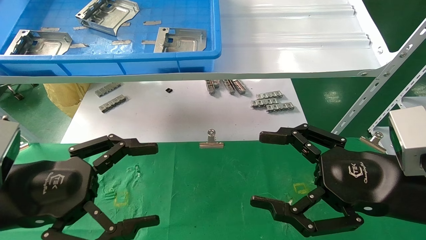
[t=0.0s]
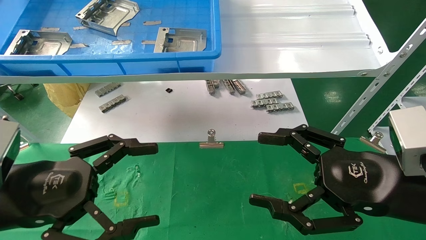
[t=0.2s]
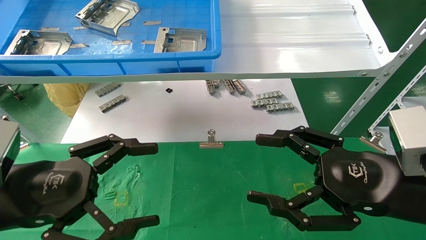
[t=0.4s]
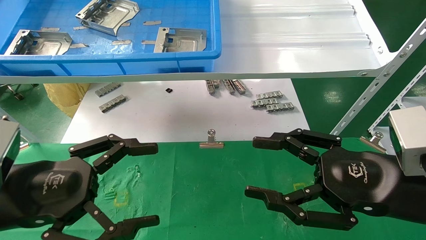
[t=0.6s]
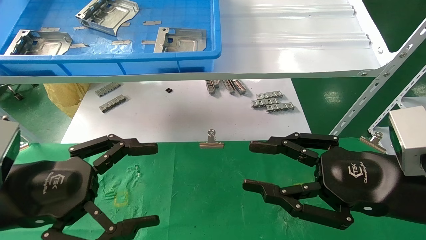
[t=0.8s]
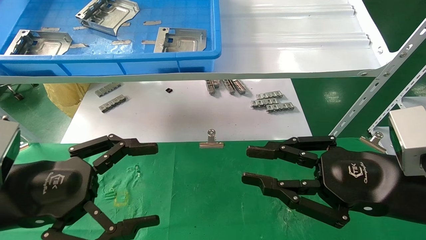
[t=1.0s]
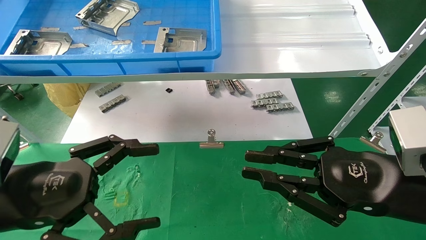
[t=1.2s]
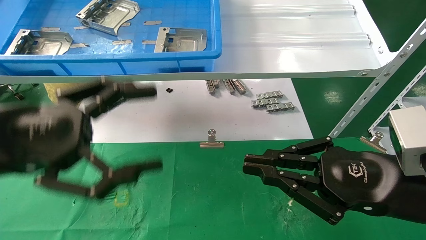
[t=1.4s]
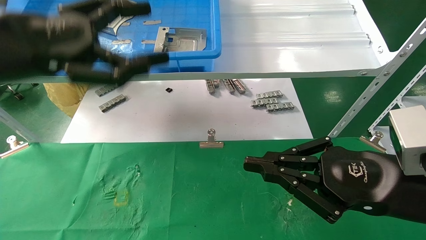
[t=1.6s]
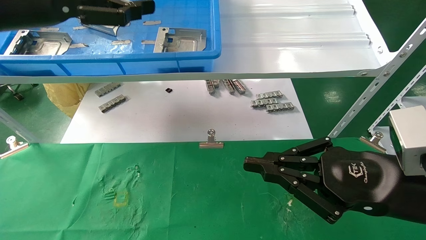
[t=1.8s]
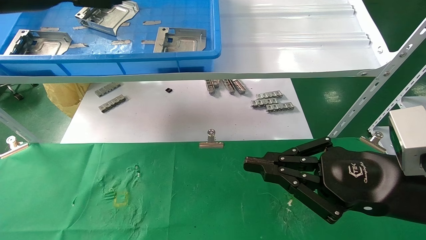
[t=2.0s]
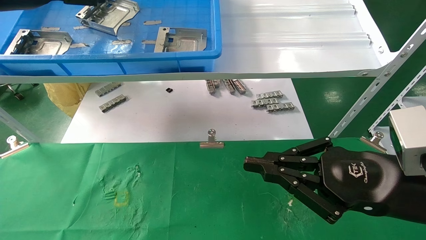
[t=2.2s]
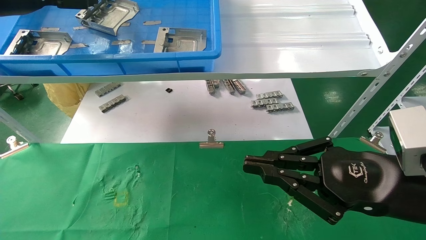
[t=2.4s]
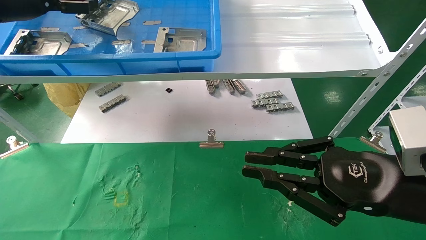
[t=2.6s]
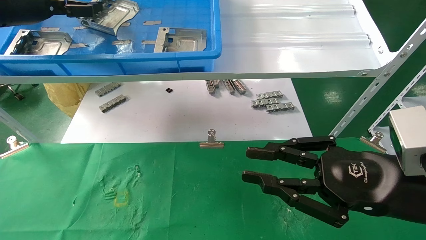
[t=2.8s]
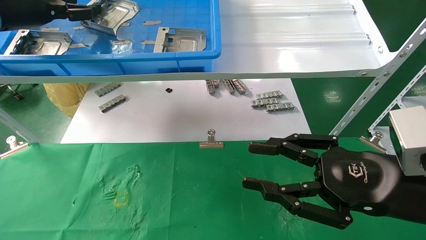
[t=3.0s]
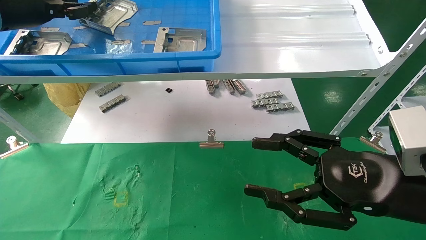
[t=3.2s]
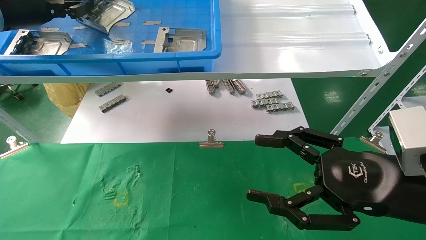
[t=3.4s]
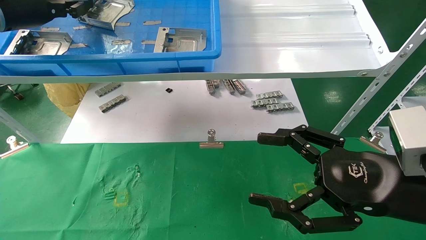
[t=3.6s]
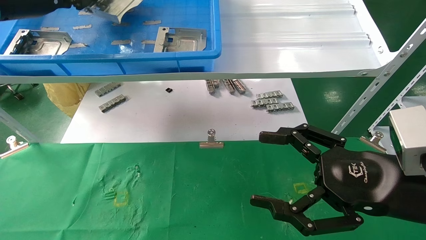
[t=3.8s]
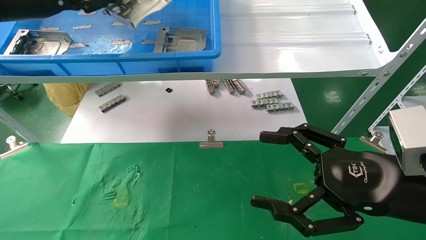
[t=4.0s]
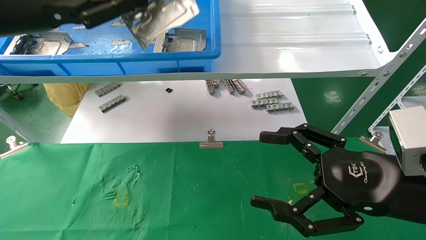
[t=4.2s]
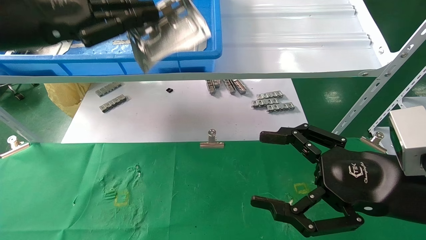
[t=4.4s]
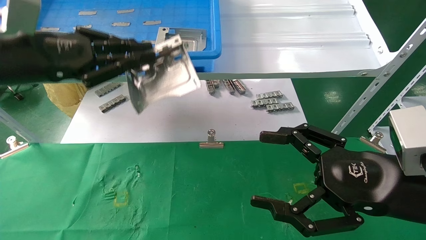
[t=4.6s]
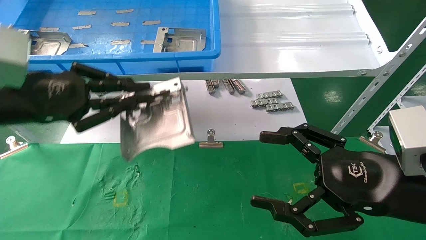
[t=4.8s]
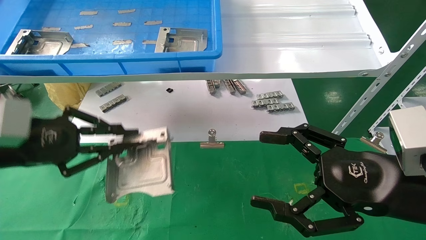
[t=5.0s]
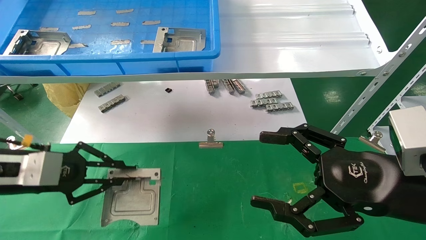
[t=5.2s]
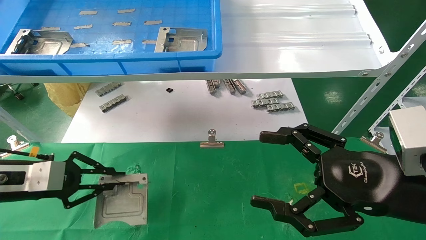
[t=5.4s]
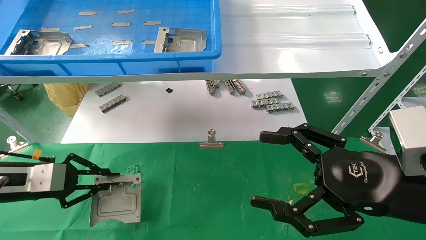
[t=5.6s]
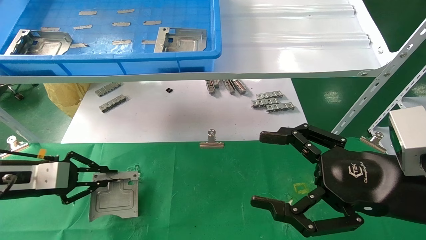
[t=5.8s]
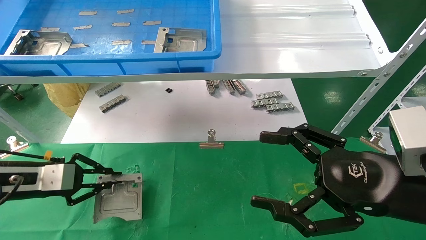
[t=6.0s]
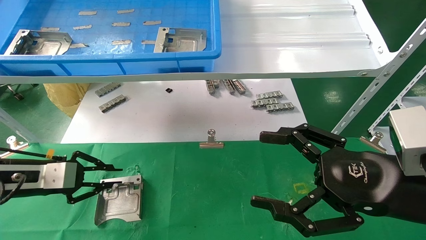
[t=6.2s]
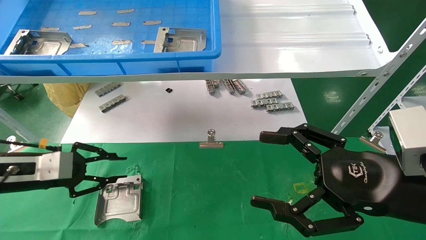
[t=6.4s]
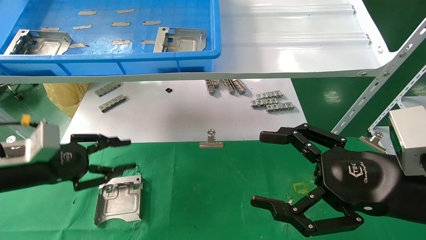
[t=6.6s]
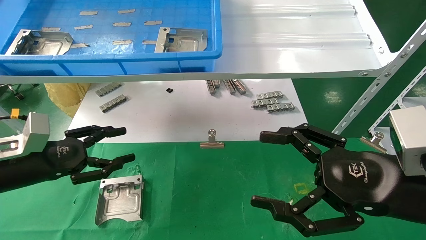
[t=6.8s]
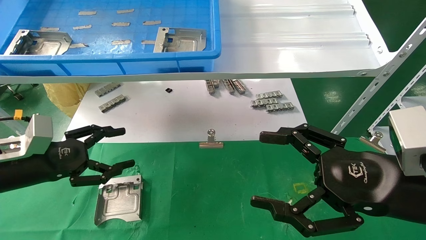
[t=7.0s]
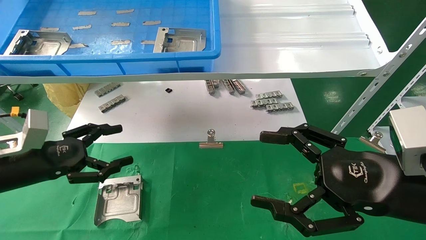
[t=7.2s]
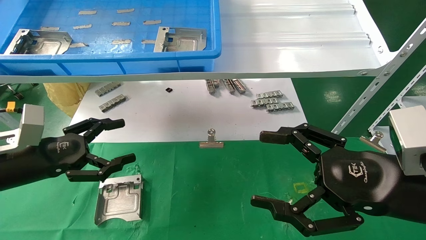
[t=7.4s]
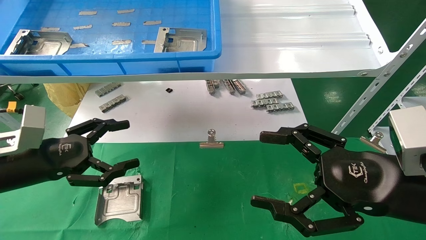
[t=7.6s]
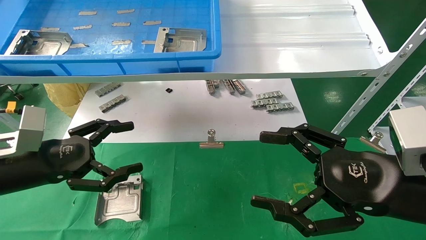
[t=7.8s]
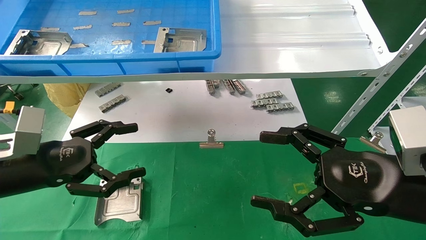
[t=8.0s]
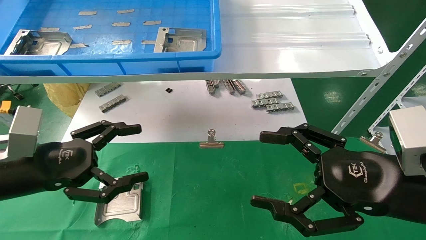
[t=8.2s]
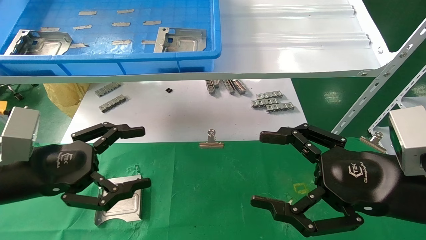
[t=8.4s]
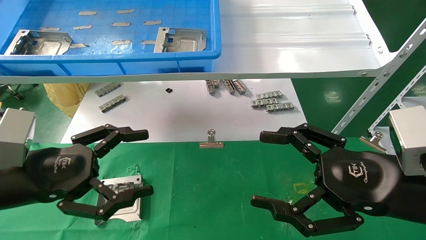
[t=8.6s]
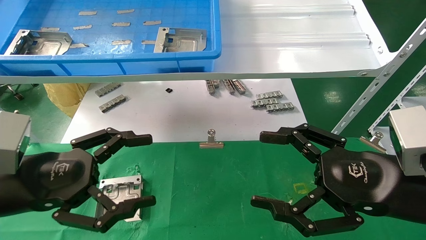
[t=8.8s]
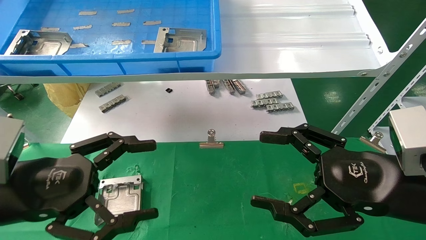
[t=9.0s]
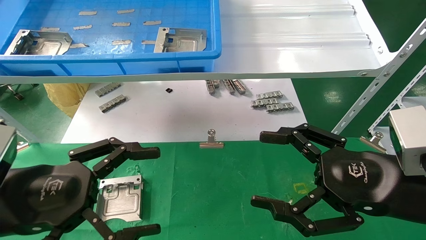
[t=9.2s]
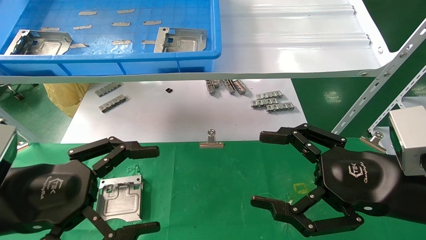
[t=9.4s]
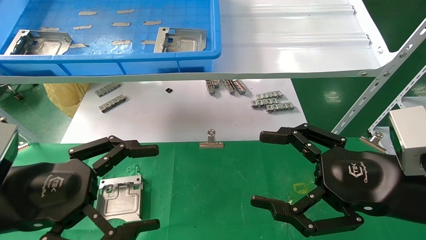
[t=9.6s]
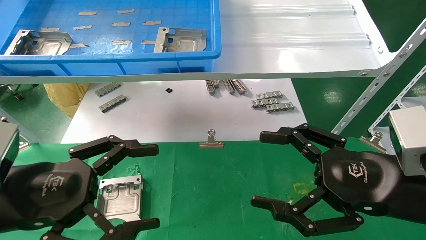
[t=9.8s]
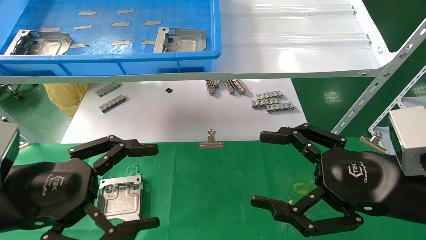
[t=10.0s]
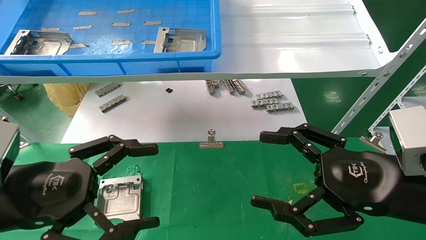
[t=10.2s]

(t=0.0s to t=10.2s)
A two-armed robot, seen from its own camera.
Task of the whole recording: use the mechanical arm to pick up the parts and place them on the table.
Step, t=1.6s - t=3.6s: Pick up the hard drive bracket from the feeding area.
Step, t=3.8s - t=6.2s: Place the hard drive bracket into the box.
t=0.0s - t=1.4s: The right gripper closes its fingers. The left gripper travels upward by approximately 10 cm.
t=1.4s - t=3.0s: The left gripper is displaced forward, upward and to the left by about 25 cm.
t=3.0s - t=4.4s: The left gripper shifts approximately 10 cm backward and to the right, and closes up, while the right gripper opens up.
t=4.4s - t=5.8s: The left gripper is displaced downward by some 25 cm.
t=5.8s - t=7.2s: The left gripper opens its fingers.
t=7.2s - t=8.8s: The left gripper goes some 10 cm backward and to the right.
t=8.8s - t=10.2s: There are only small adjustments of the grippers.

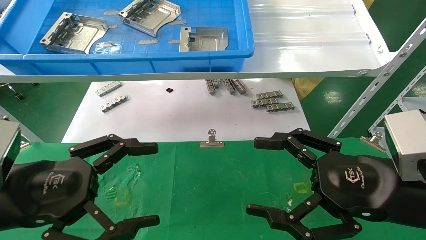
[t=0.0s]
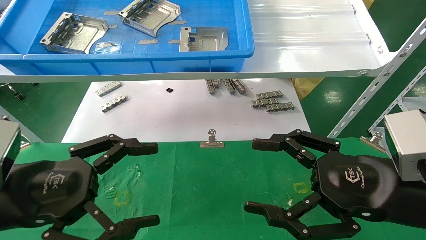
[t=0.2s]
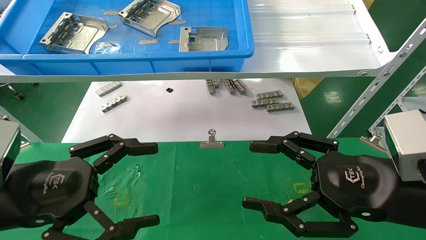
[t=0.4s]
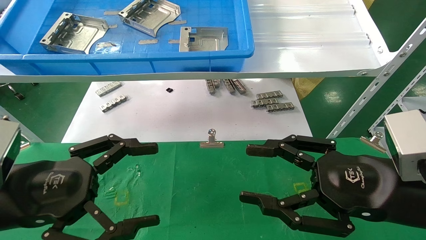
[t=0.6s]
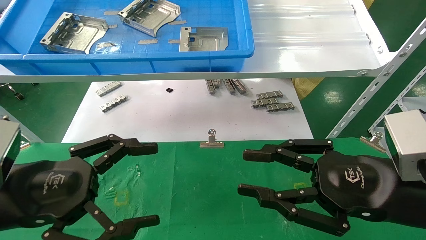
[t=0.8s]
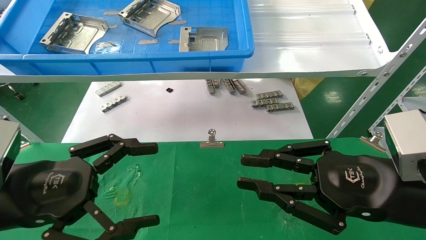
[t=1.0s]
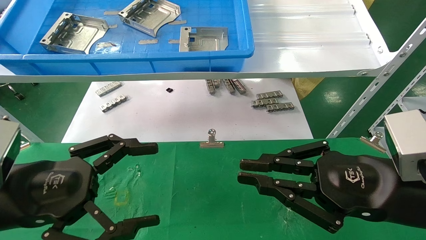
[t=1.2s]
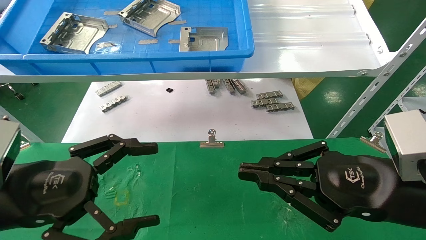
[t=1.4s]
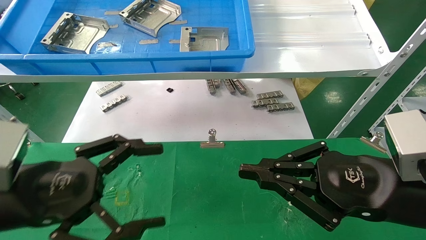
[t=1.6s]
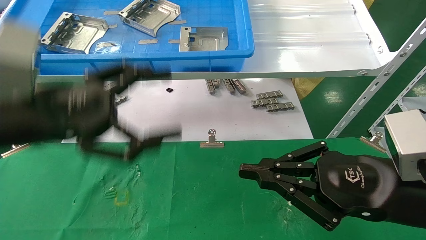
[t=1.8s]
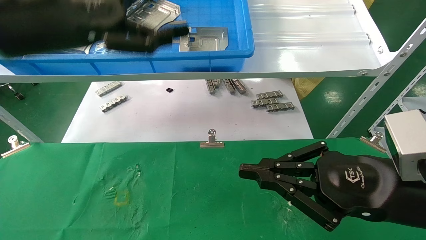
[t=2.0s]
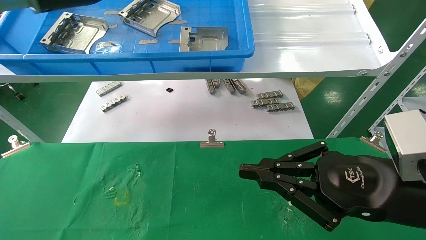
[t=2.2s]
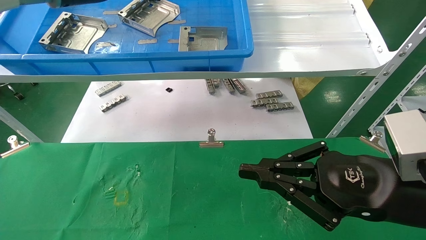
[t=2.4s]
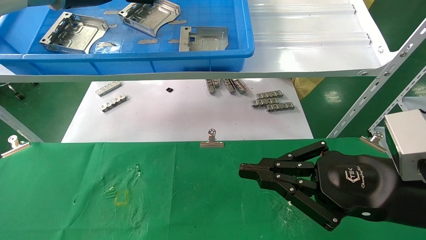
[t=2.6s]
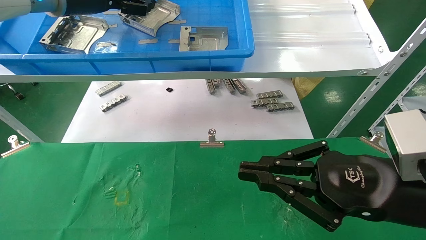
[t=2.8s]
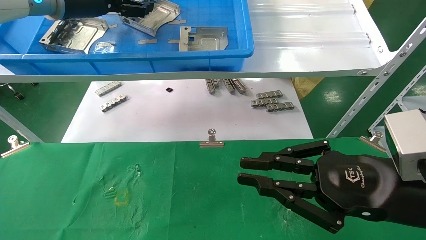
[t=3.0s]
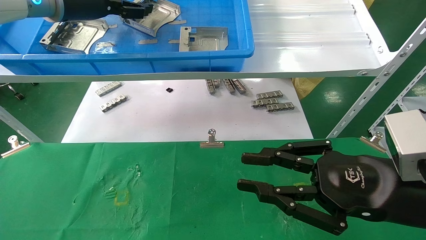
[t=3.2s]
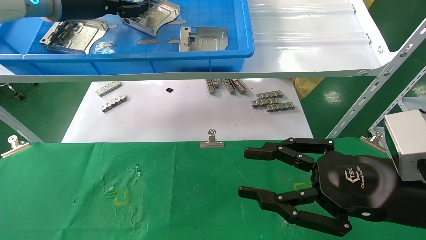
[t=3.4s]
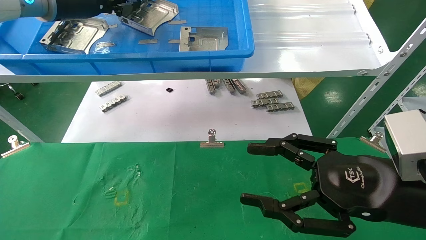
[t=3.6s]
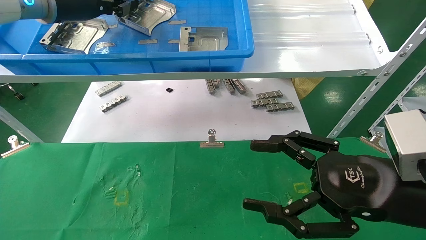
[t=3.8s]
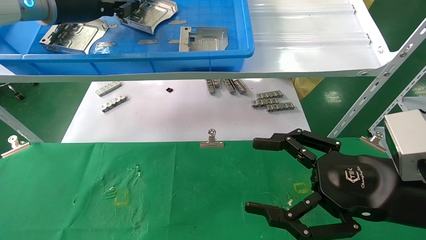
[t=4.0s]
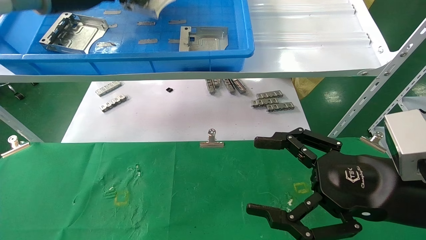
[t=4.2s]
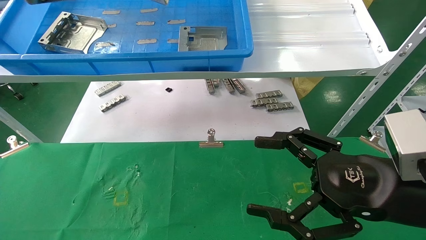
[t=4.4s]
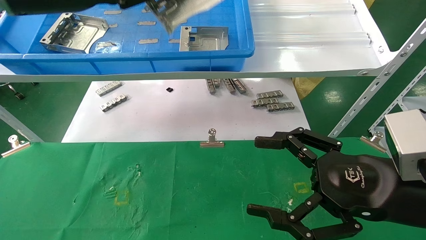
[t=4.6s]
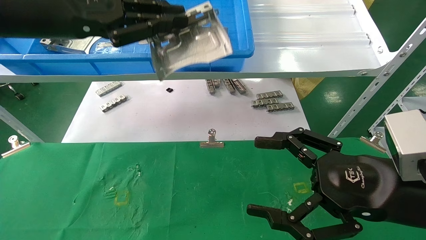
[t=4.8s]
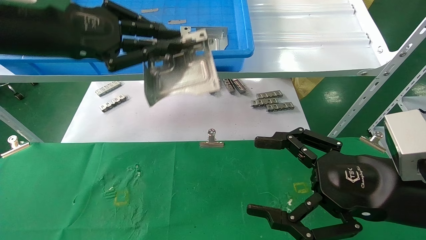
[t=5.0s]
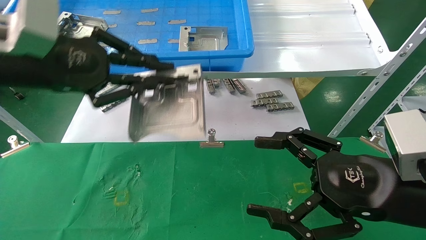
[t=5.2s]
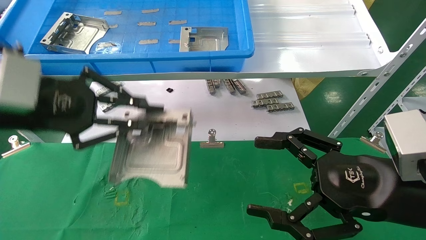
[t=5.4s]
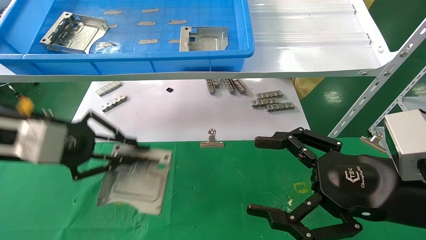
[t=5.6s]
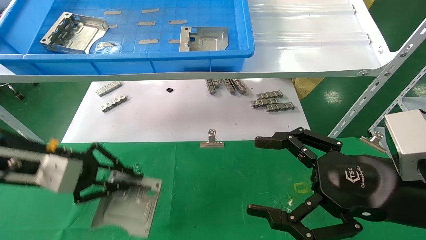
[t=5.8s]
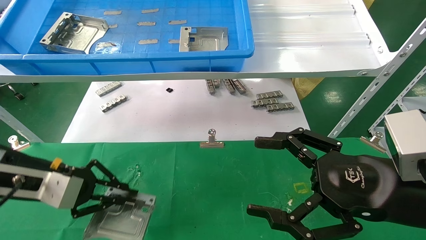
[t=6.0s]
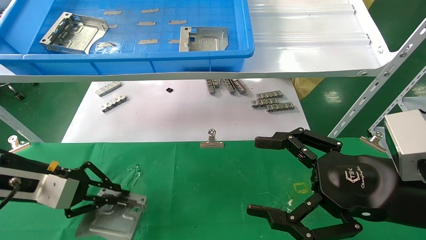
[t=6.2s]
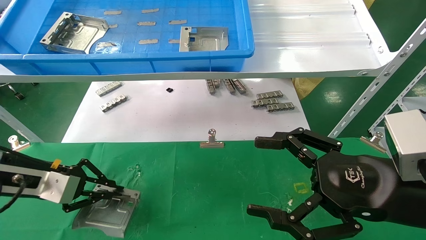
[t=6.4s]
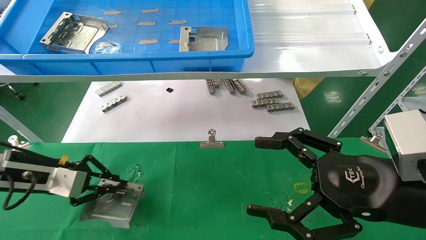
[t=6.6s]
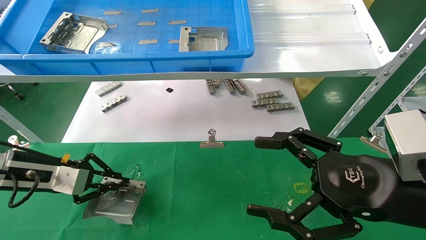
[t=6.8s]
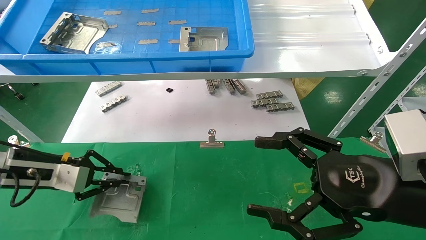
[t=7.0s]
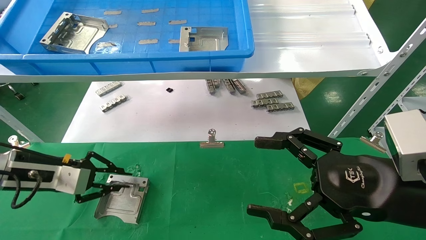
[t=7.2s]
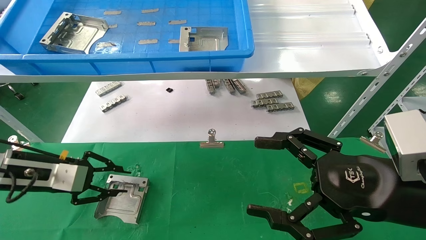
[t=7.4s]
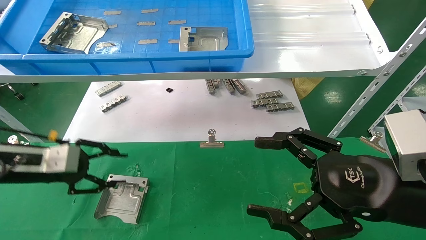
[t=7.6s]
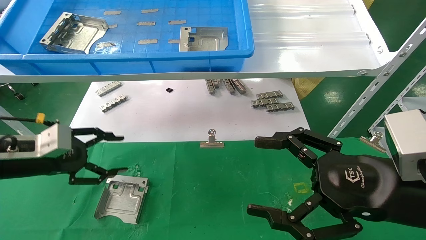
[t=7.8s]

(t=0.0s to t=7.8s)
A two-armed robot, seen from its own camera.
Task of the whole recording: use the mechanical arm to pick up the parts and place them on the table.
Step, t=1.8s - t=3.8s: Pick up the hard drive bracket from the feeding area.
Step, t=4.0s - t=7.4s: Place the hard drive bracket into the box.
t=0.0s - t=1.6s: The left gripper moves some 5 cm. Meanwhile the right gripper closes up.
t=1.6s - t=3.2s: The left gripper moves forward and upward, about 30 cm.
t=3.2s - t=4.6s: The left gripper goes some 10 cm backward, and closes. Meanwhile the right gripper opens up.
t=4.6s - t=6.2s: The left gripper shifts about 25 cm downward.
t=6.2s - t=7.8s: The left gripper opens.
